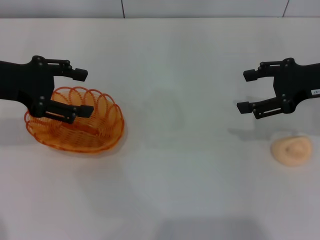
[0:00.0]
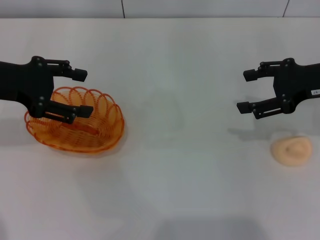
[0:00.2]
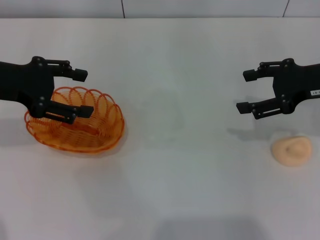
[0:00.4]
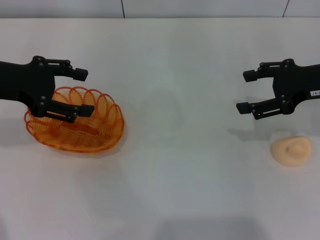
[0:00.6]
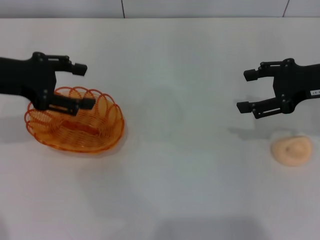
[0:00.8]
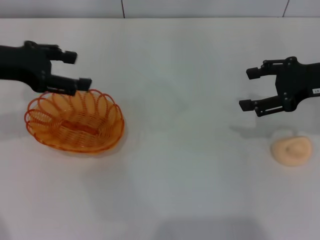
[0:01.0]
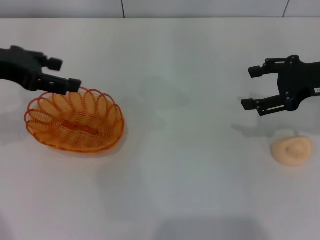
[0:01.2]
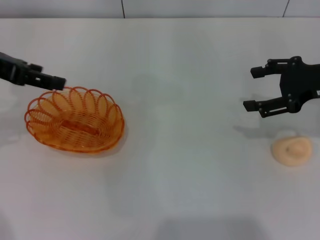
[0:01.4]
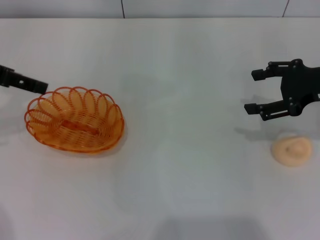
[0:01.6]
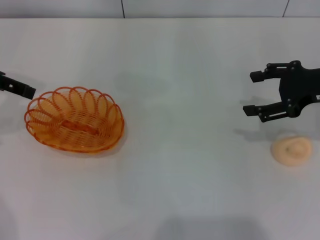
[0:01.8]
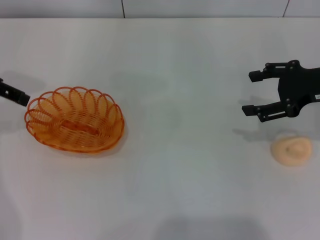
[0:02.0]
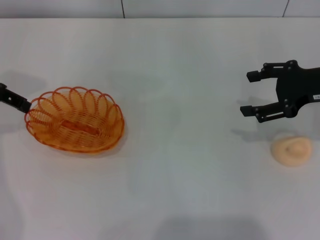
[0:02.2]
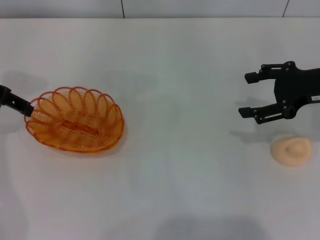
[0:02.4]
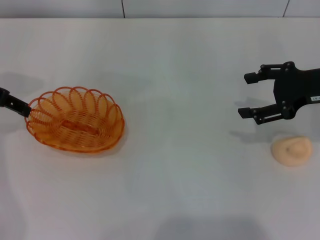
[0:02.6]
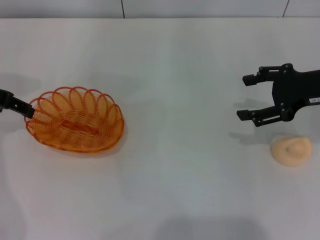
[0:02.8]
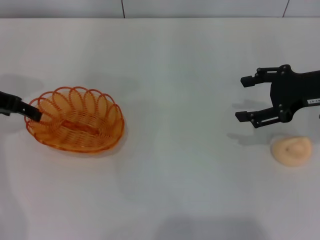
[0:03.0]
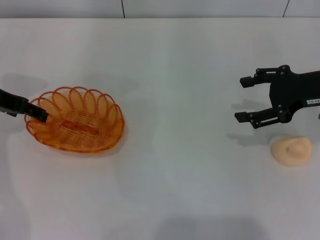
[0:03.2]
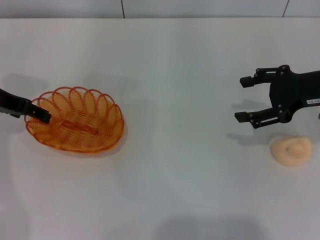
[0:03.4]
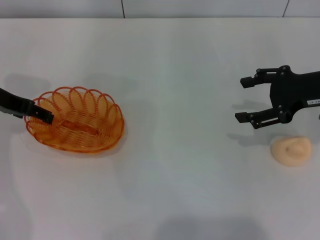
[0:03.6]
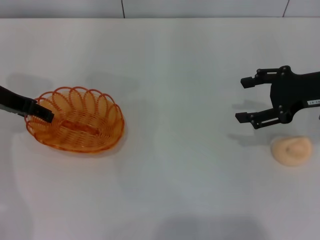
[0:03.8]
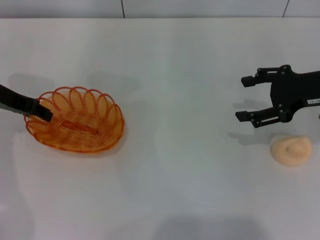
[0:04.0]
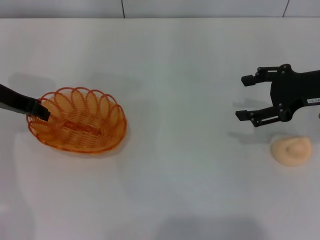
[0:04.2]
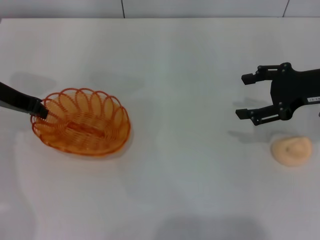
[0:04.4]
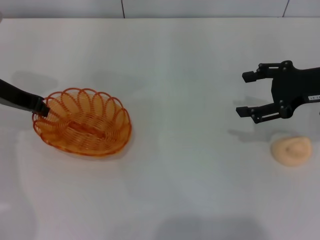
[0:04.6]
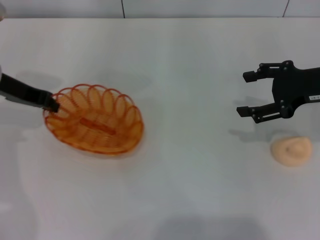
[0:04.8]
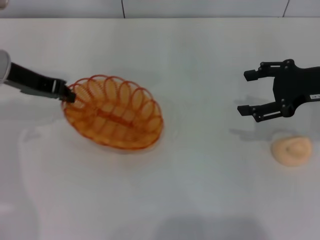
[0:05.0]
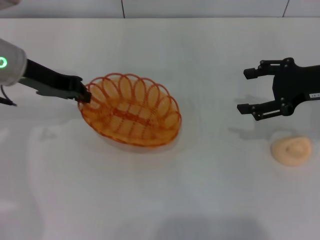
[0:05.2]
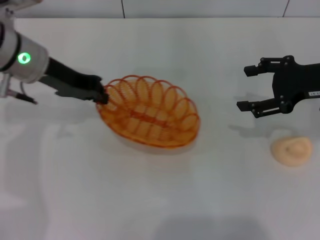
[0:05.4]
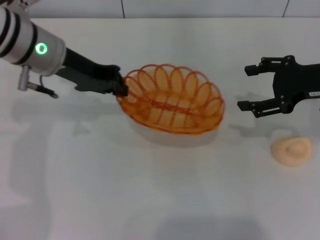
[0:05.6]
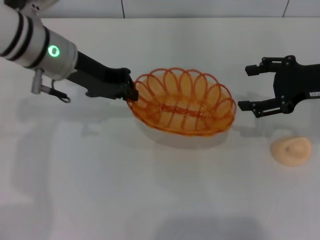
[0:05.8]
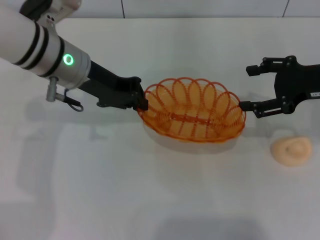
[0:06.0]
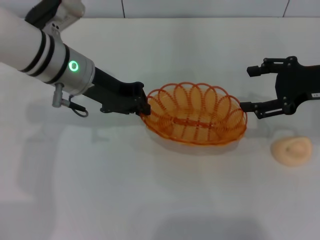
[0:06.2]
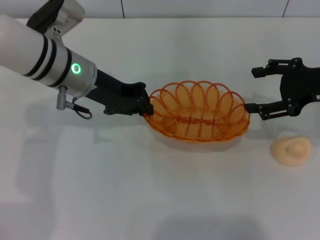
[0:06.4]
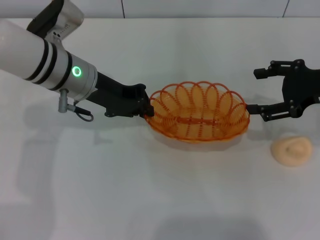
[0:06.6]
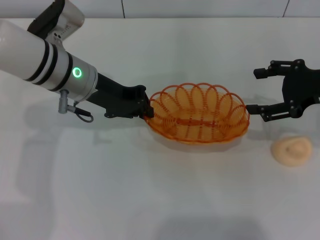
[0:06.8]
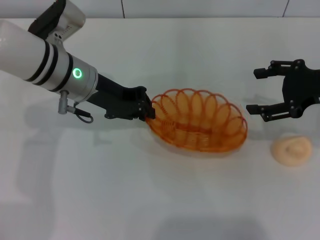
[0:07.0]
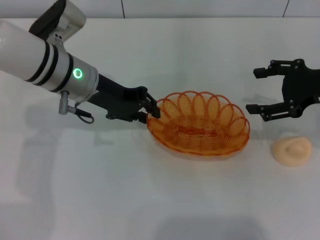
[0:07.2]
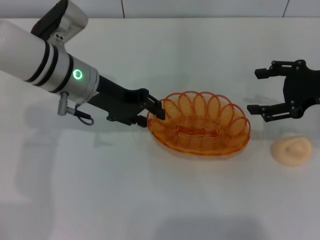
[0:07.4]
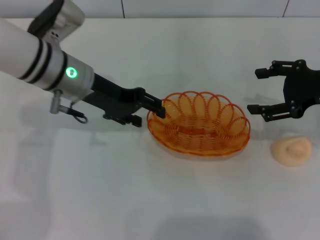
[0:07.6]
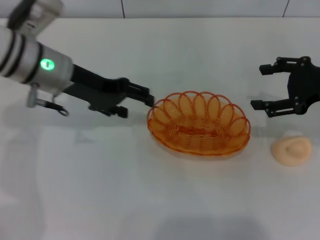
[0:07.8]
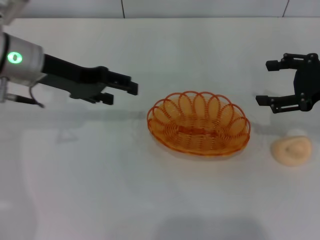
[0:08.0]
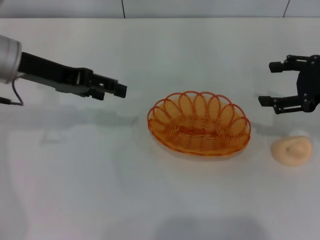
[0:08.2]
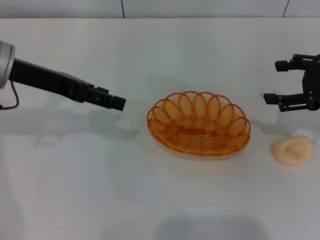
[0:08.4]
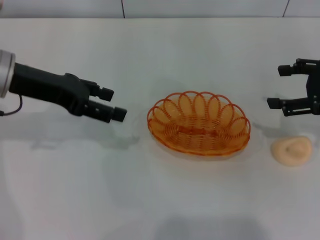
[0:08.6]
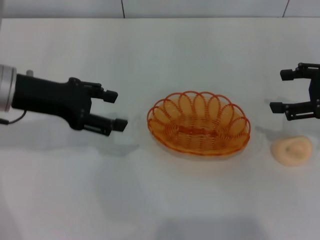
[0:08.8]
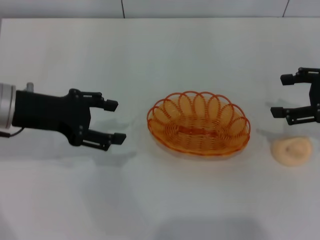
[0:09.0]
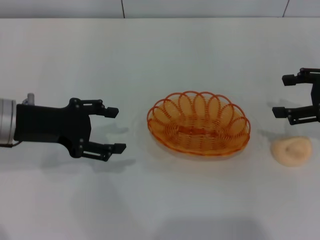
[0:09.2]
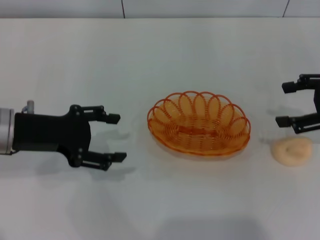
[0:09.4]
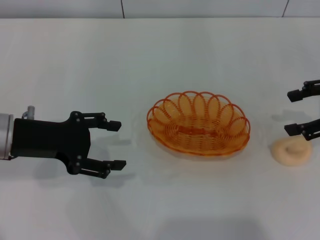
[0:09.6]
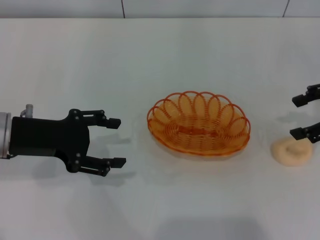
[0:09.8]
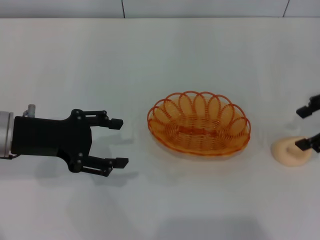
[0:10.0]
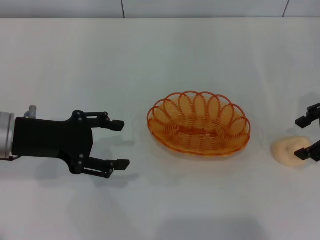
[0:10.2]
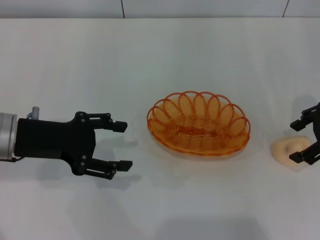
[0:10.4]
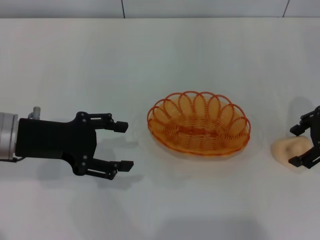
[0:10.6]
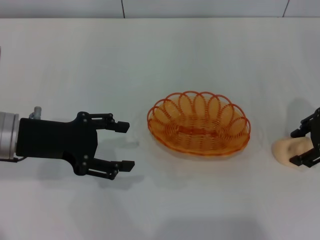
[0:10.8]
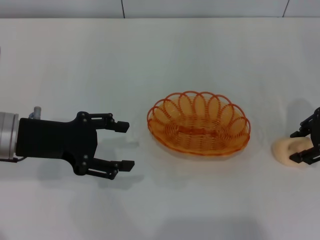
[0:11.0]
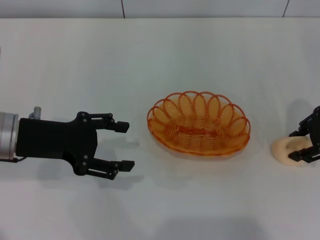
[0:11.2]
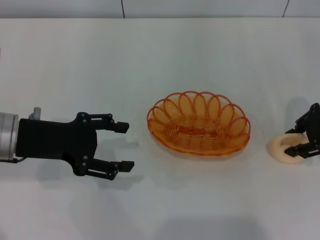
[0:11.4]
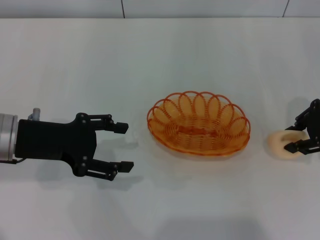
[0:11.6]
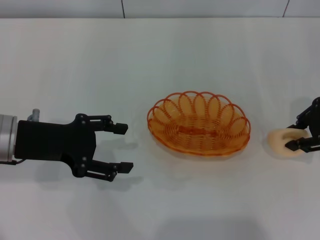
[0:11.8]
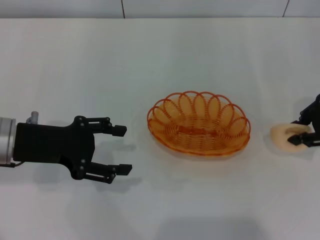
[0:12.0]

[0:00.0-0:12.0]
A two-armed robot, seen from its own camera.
Step, 0:00.0 to 0:05.4: Pick up the basket with the left gripper.
Step, 0:05.6 to 0:08.4: Place the basket in the center of view with the left gripper.
0:00.0 to 0:01.6: The left gripper changes place by some 5 cm.
0:01.6 to 0:03.0: The left gripper goes roughly 5 cm downward.
0:03.0 to 0:04.4: The left gripper closes up.
0:04.4 to 0:06.0: The left gripper travels to the right by roughly 15 cm.
0:06.0 to 0:07.6: The left gripper opens its fingers.
0:07.6 to 0:09.0: The left gripper travels to the left and backward by roughly 10 cm, and opens its fingers.
0:10.4 to 0:12.0: The right gripper closes its fingers.

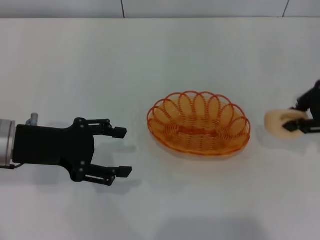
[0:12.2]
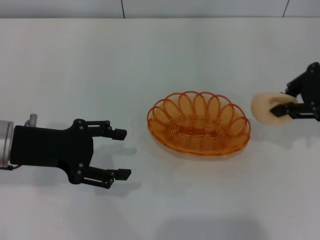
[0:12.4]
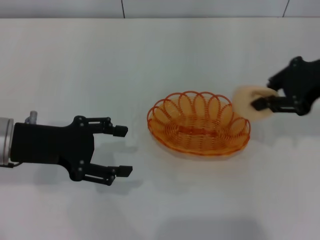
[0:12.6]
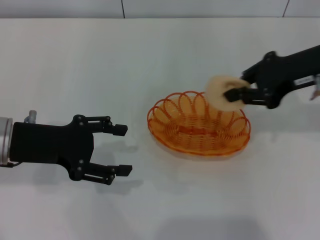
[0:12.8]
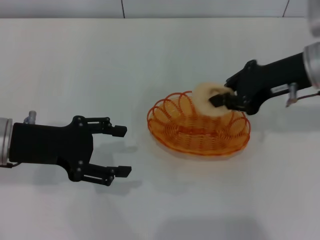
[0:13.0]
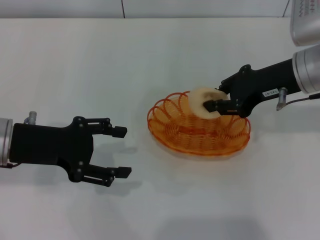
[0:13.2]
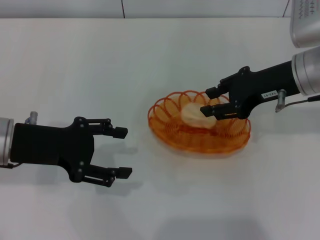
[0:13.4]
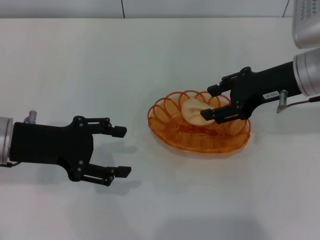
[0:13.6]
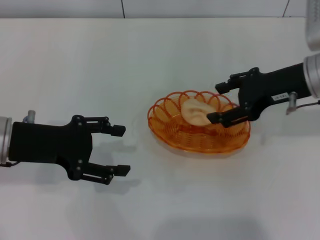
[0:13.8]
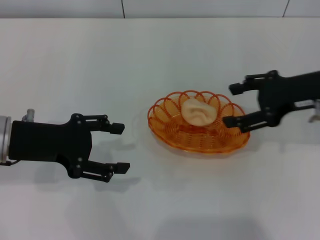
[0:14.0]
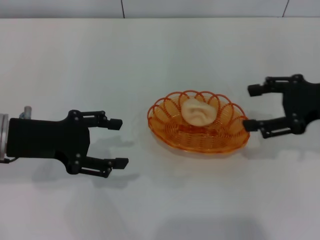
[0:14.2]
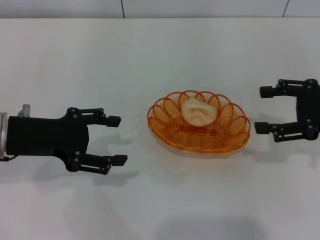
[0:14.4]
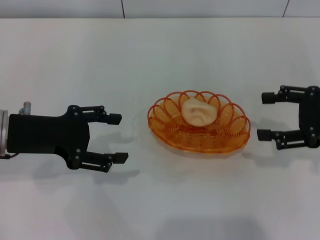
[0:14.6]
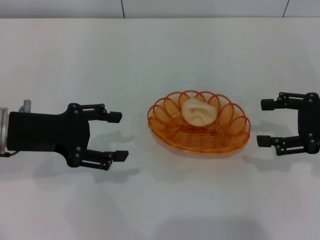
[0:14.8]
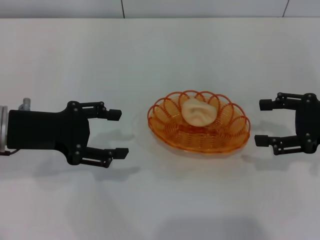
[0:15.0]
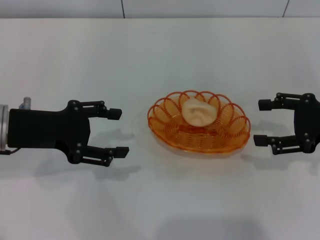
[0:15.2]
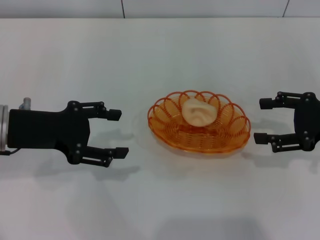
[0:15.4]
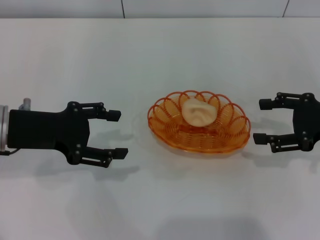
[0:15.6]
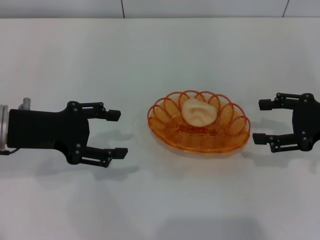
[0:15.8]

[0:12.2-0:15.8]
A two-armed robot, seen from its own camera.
Step, 0:12.4 to 0:14.4: Place the egg yolk pastry into the basket with the right gripper.
0:12.2 to 0:14.0: The right gripper opens.
0:14.0 to 0:15.8: The right gripper goes some 5 cm to the right.

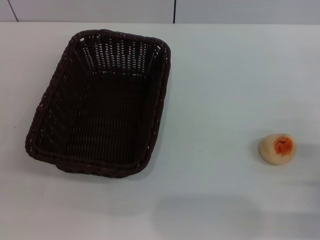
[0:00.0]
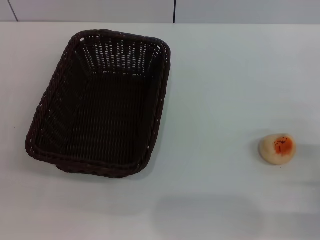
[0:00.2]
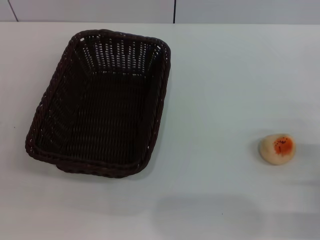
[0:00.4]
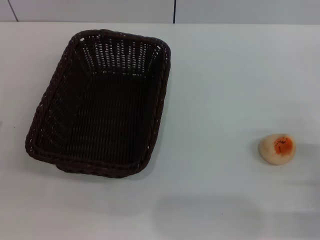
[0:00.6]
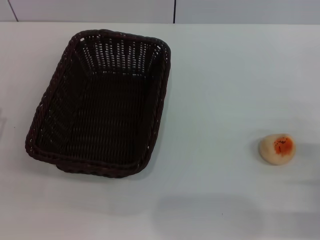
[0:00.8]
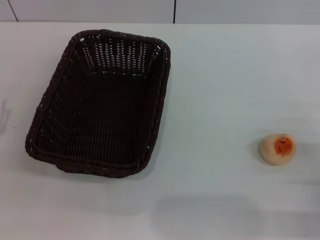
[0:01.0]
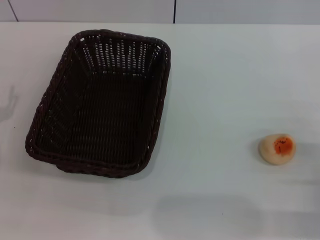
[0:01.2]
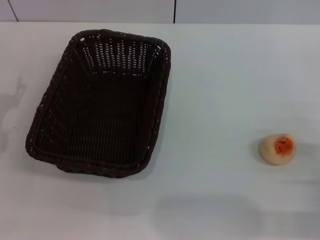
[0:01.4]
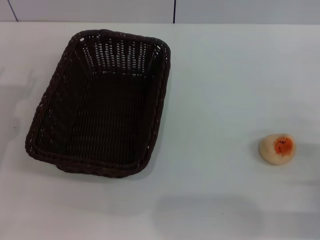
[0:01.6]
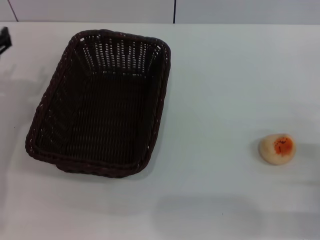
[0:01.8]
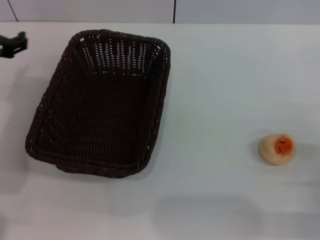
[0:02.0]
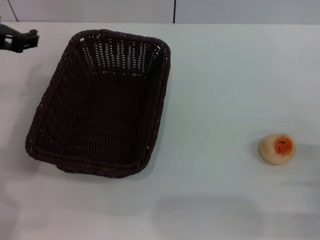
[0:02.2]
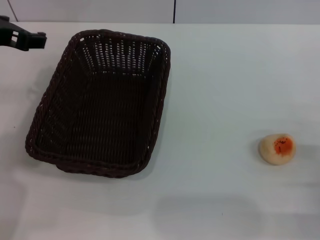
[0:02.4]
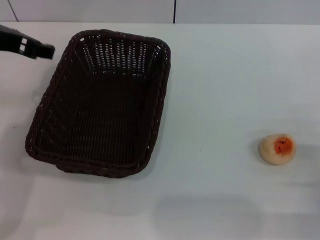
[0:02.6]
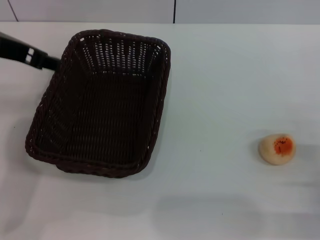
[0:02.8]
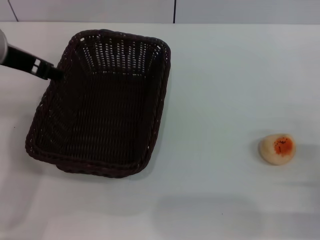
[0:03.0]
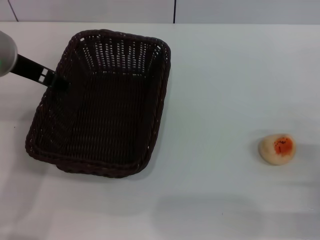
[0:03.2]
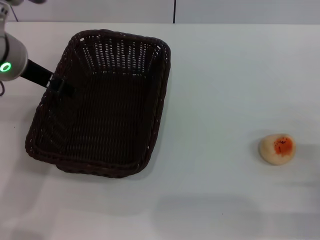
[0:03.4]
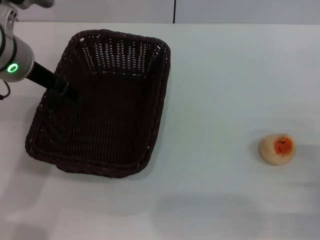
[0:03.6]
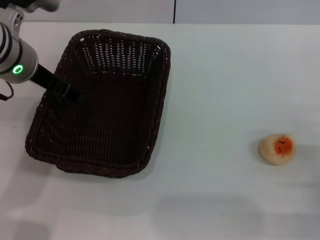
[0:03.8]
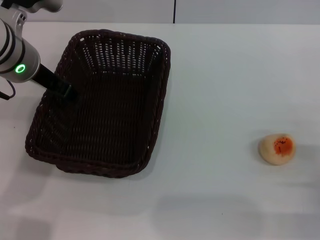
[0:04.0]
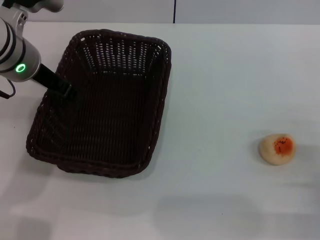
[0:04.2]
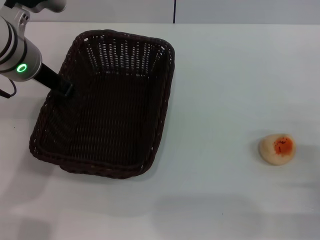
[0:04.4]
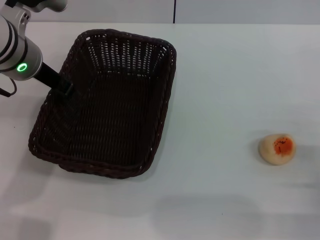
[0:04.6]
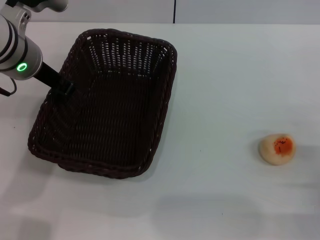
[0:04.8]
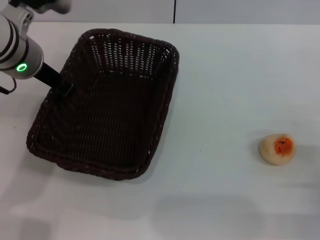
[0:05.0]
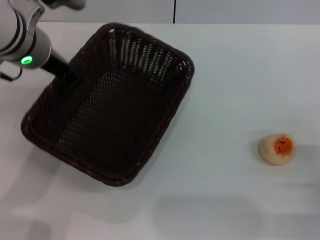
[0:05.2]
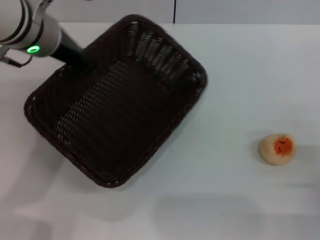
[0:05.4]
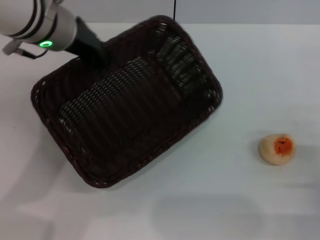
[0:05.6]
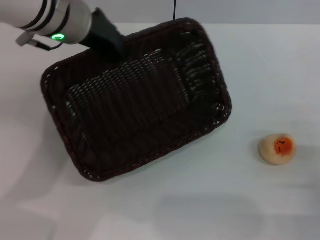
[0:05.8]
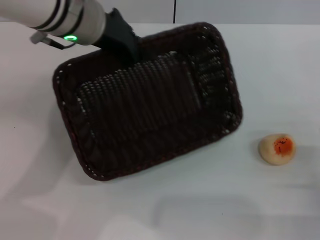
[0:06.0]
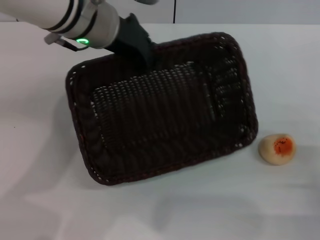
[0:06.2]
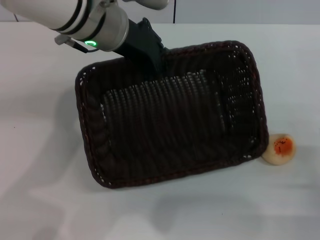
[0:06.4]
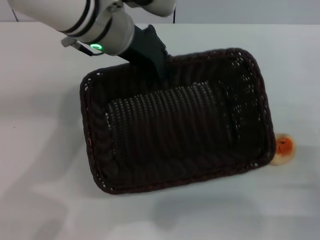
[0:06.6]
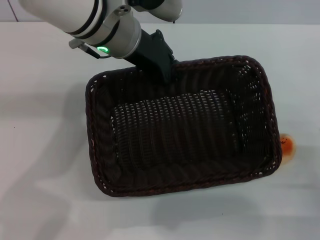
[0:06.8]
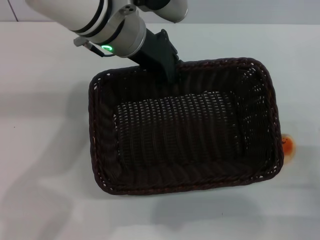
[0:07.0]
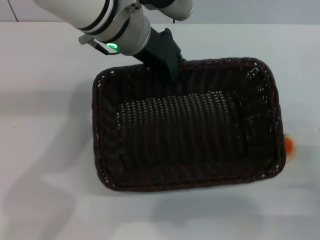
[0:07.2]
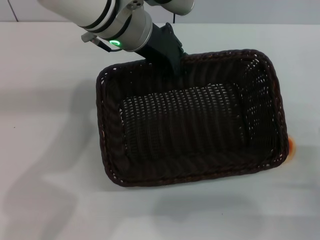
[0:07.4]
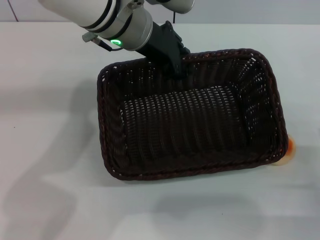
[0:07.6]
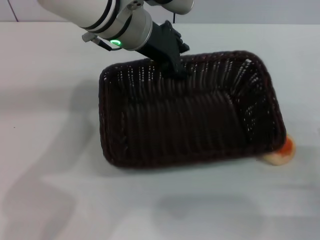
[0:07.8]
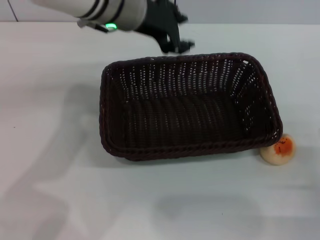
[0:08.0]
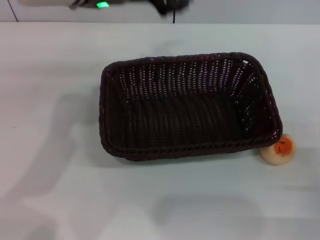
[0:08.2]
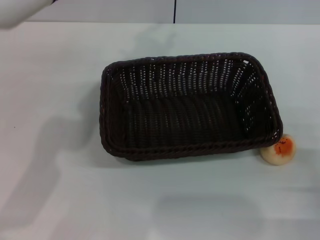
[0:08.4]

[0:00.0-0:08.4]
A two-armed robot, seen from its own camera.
Step, 0:00.0 to 0:08.0: Move the basket to the center of view with the left gripper.
0:01.4 to 0:02.8: The left gripper moves upward and to the right, roughly 20 cm.
0:02.8 to 0:04.2: The left gripper heads downward, covering roughly 5 cm.
0:04.2 to 0:05.6: The left gripper changes place by about 5 cm, and closes up.
0:05.6 to 0:07.0: The left gripper goes approximately 5 cm to the right.
0:07.0 to 0:08.4: The left gripper moves about 5 cm, and opens up.
